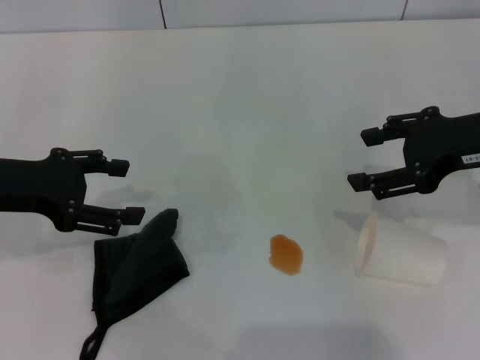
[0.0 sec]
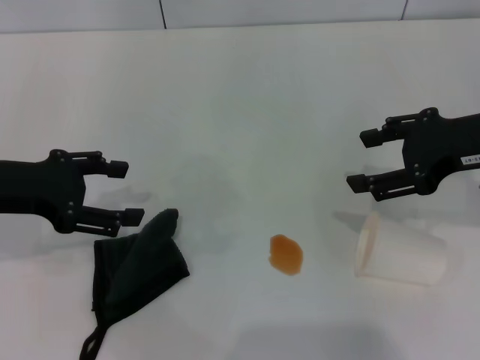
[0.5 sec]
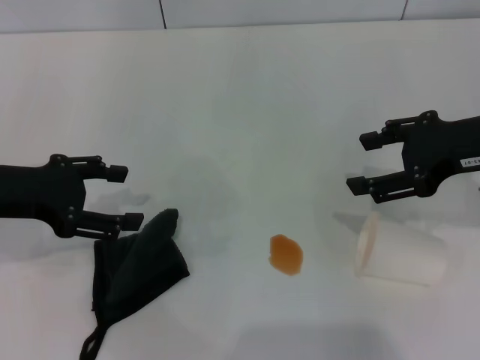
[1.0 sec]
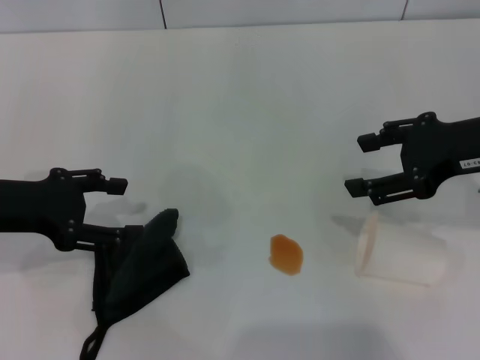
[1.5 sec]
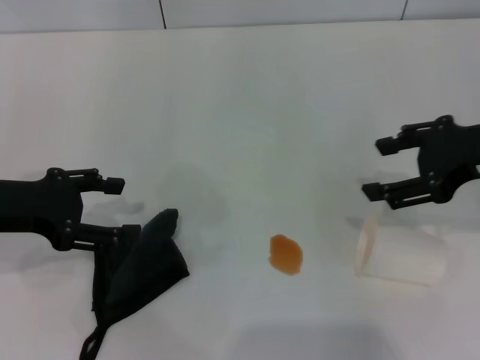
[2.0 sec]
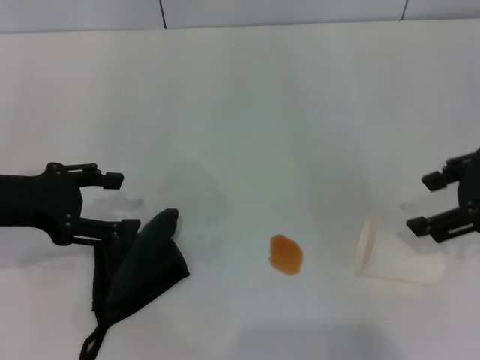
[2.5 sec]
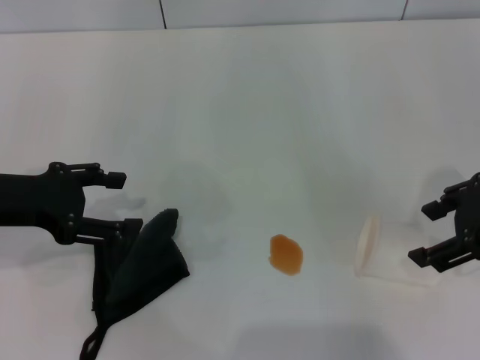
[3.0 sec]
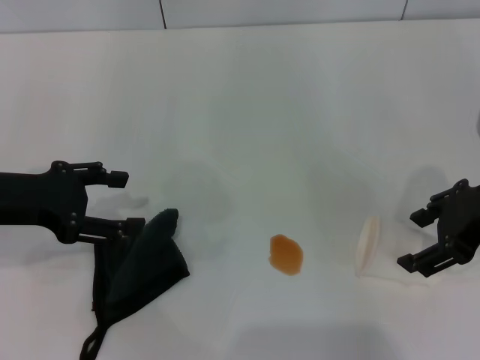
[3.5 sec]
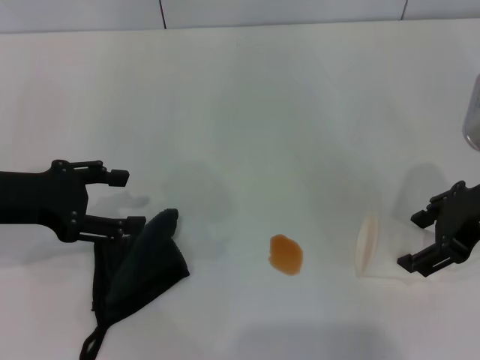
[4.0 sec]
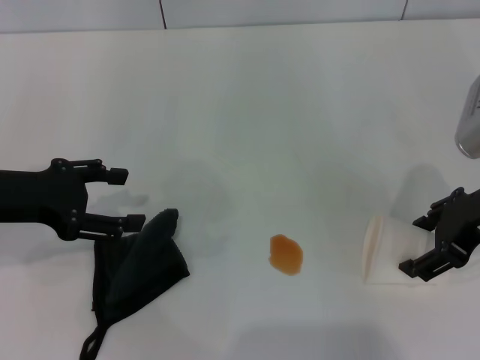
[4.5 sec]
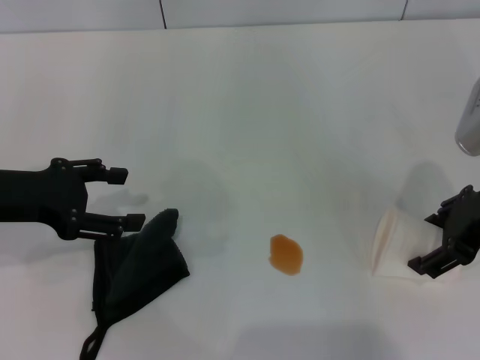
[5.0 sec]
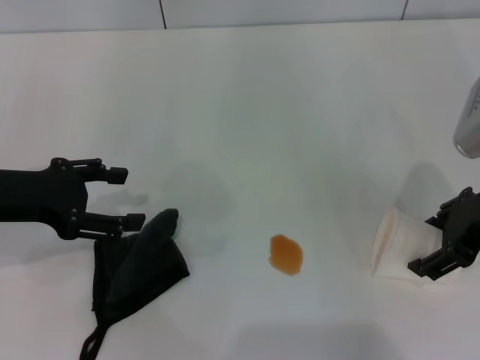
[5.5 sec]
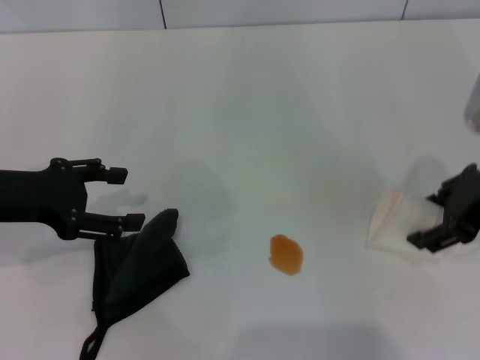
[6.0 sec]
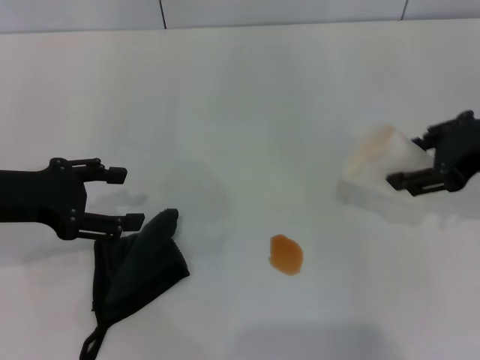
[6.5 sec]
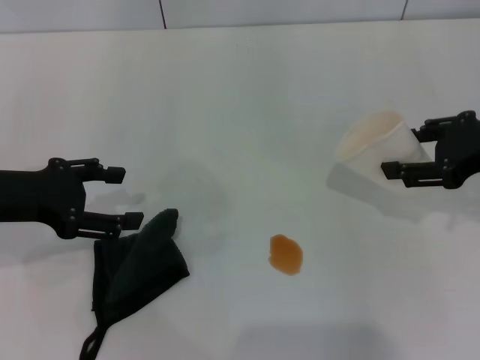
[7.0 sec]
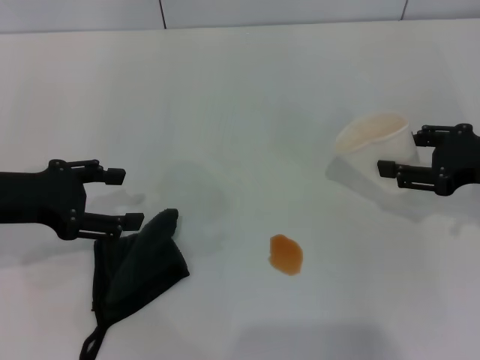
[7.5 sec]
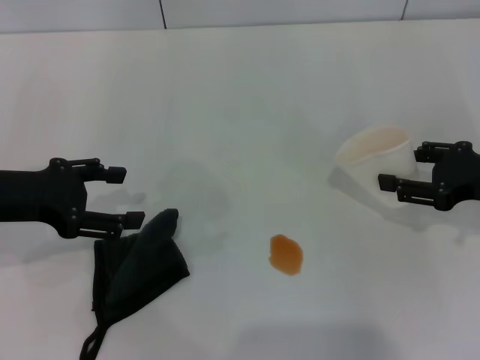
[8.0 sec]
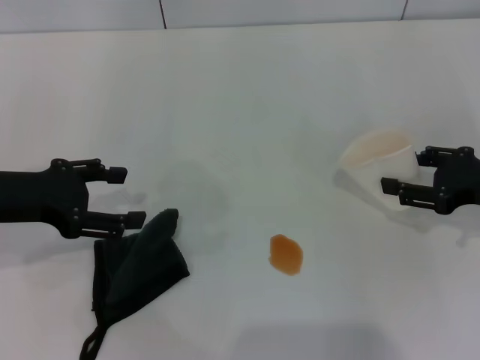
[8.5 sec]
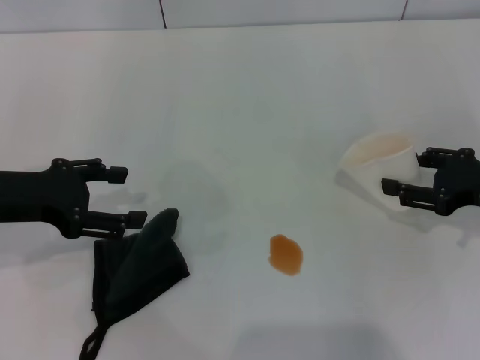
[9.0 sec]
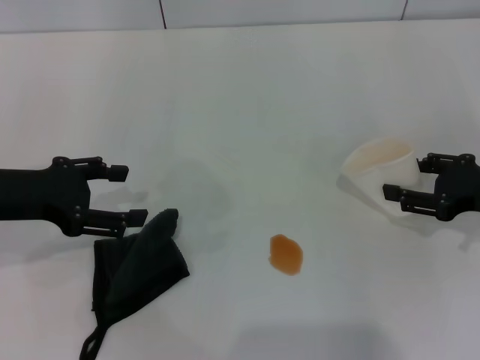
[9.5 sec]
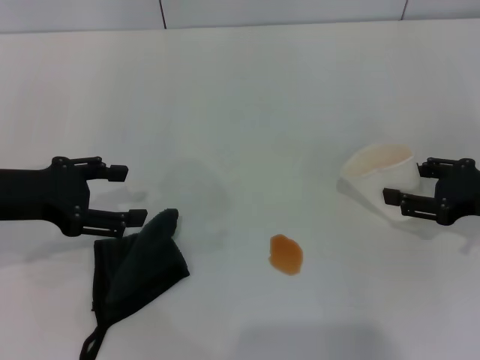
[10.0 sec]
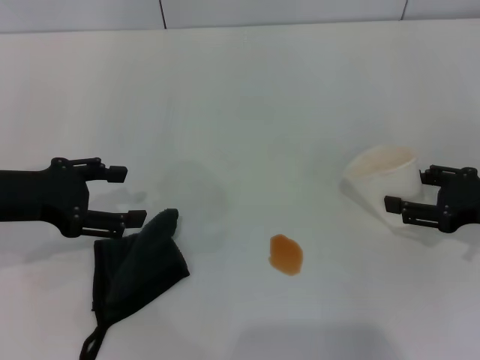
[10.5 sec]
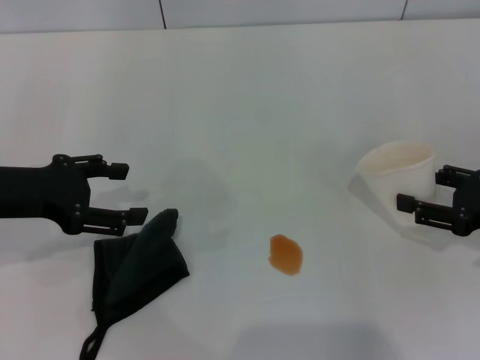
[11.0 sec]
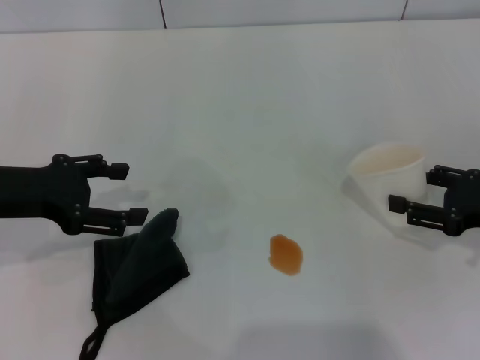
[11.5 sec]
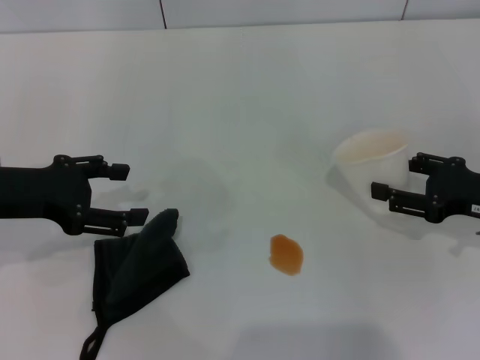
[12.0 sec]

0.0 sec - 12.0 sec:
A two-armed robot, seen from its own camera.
Step, 0.0 sec - 4.5 sec: Grasp the paper cup with the right gripper.
0.0 sec - 2.0 sec: There are only small adjustments of the grippers.
4.0 sec - 6.0 sec: Neither gripper changes place.
6.0 sec - 8.0 sec: The right gripper goes about 10 cm downward and to the right.
8.0 sec - 12.0 sec: The grippers make only small movements.

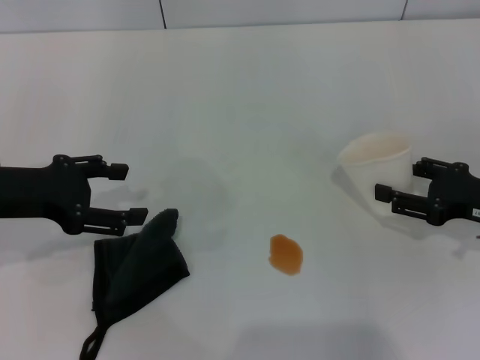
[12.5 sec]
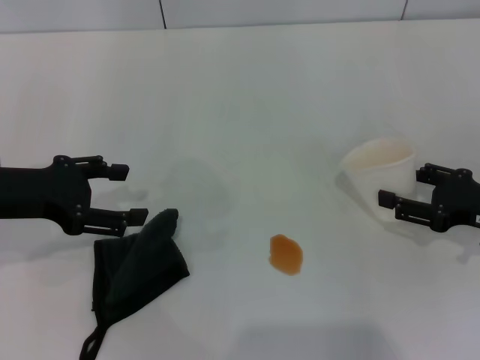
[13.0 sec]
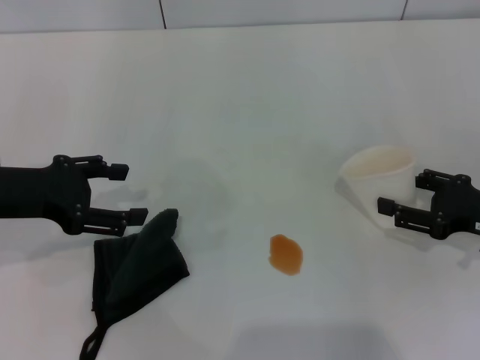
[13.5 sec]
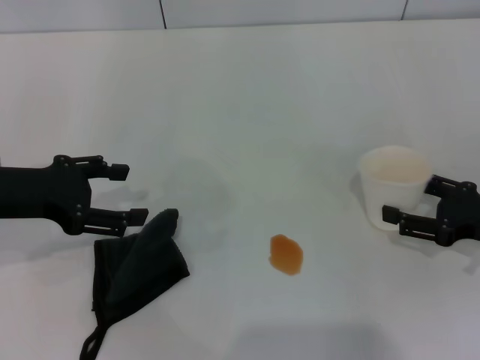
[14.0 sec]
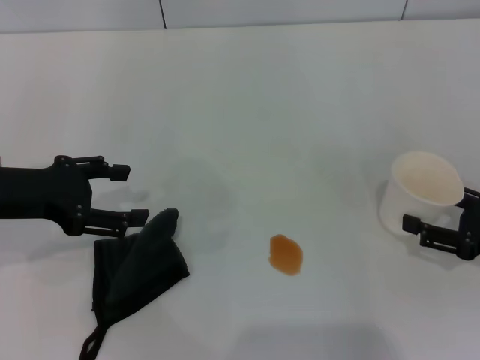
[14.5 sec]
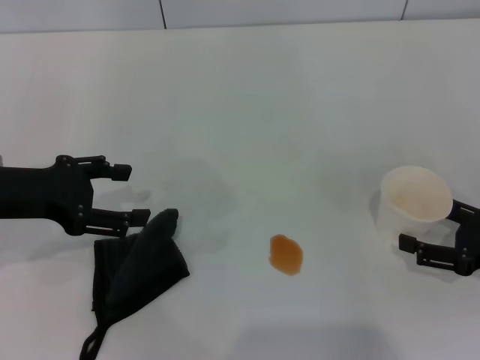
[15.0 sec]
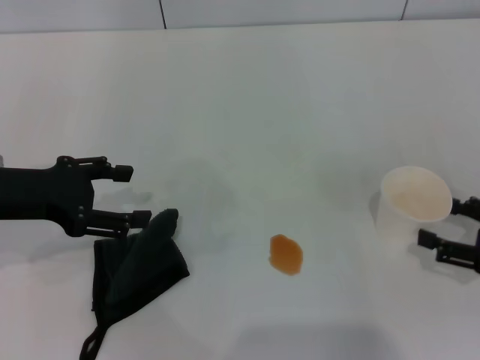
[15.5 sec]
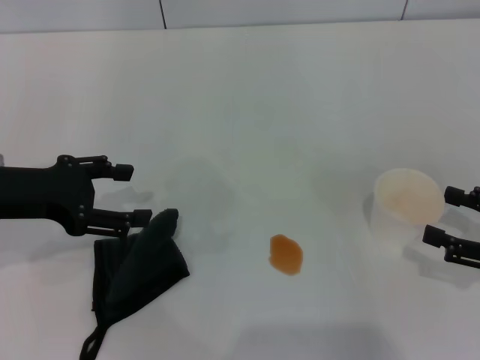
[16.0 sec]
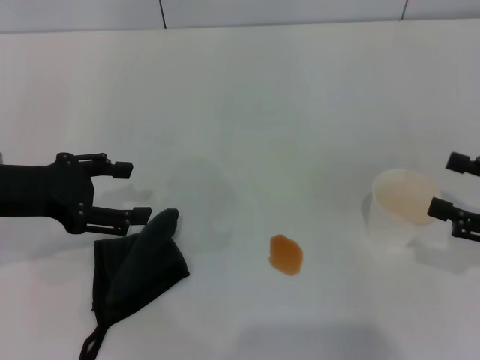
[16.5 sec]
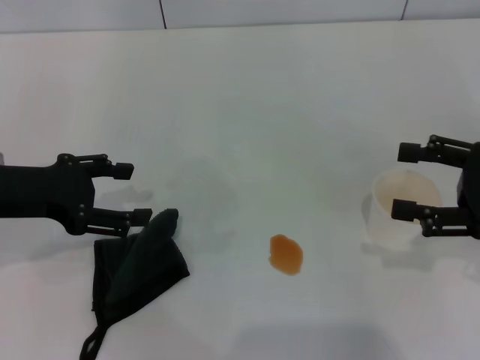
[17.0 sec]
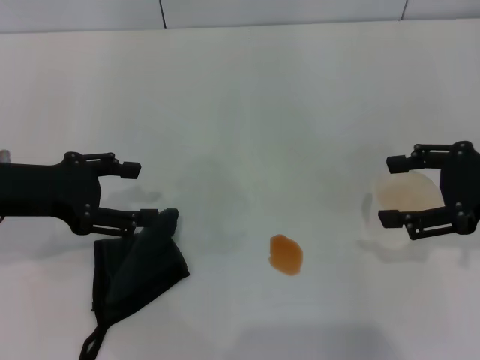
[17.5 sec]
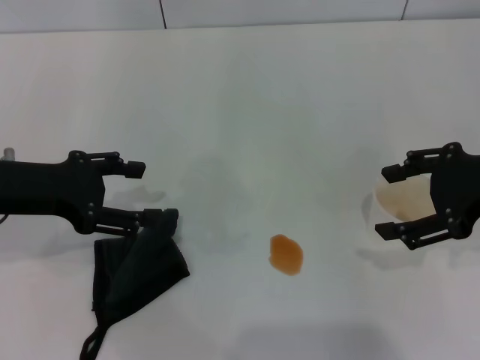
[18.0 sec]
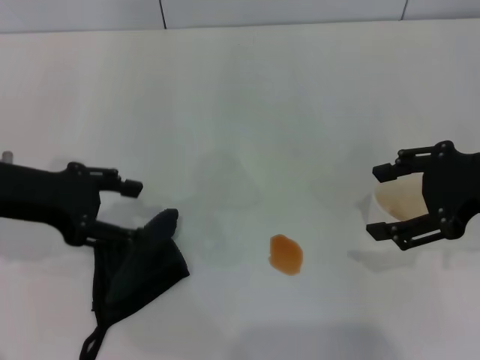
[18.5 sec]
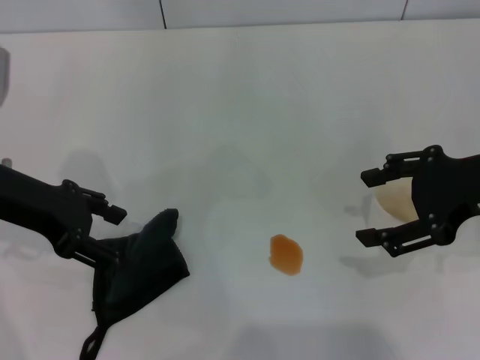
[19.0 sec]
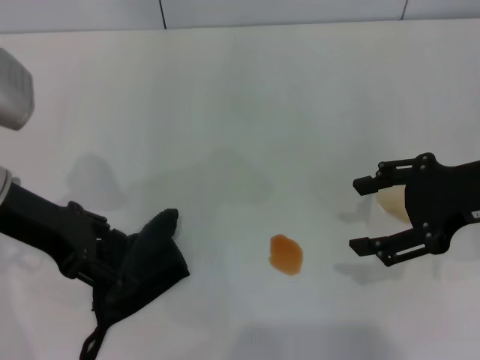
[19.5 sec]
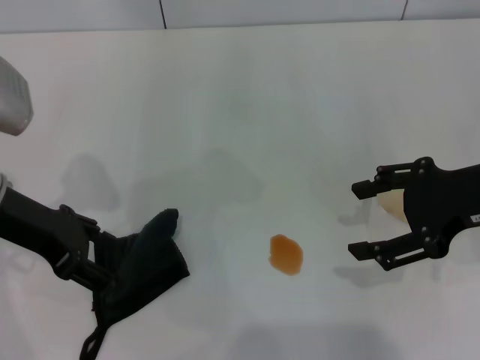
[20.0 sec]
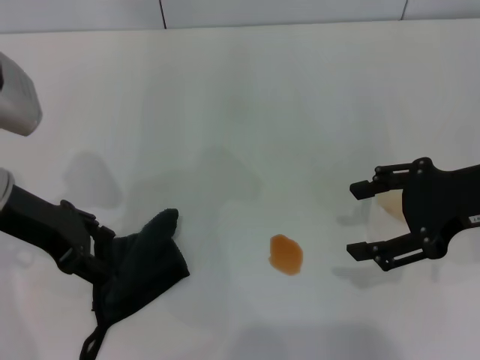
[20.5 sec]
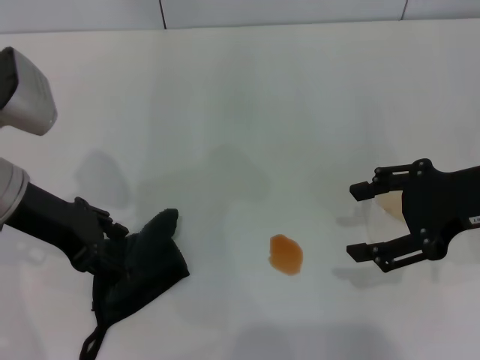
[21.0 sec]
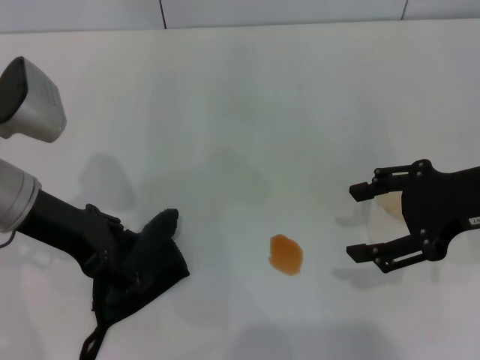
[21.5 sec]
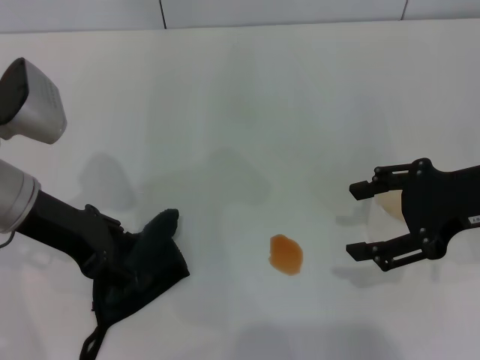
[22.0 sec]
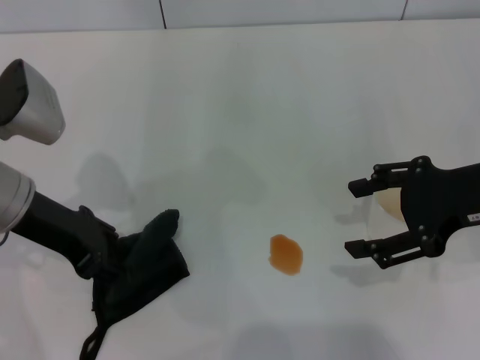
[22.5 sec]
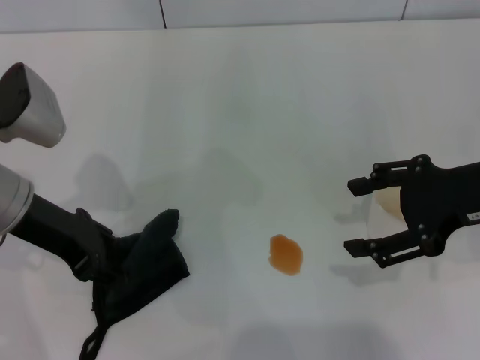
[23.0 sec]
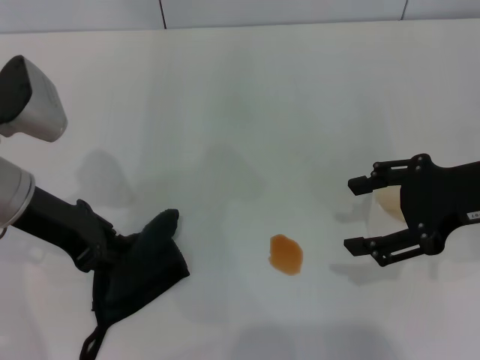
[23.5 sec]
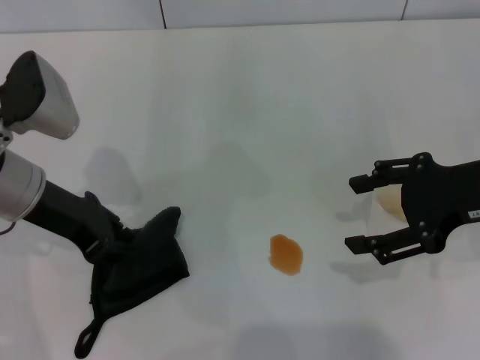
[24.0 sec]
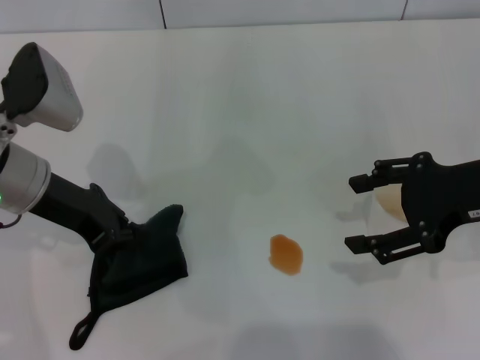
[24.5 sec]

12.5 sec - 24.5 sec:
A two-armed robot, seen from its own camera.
Step, 12.5 sec - 16.5 sec: Stand the paper cup upright with the right gripper.
12.5 sec - 14.5 sec: The right gripper opens up.
14.5 sec - 16.5 sec: The grippers make only small movements.
16.5 sec - 18.5 sec: The right gripper goes some 15 cm upward, to the left and forward.
20.5 sec - 22.5 sec: The left gripper closes.
22.5 sec - 24.5 sec: The left gripper closes.

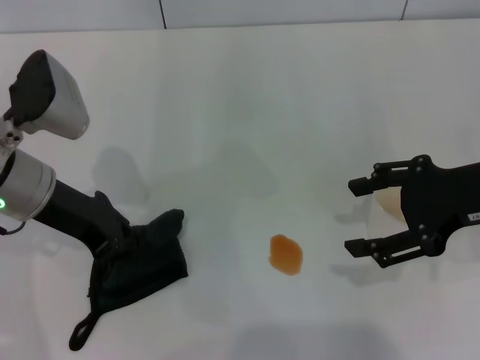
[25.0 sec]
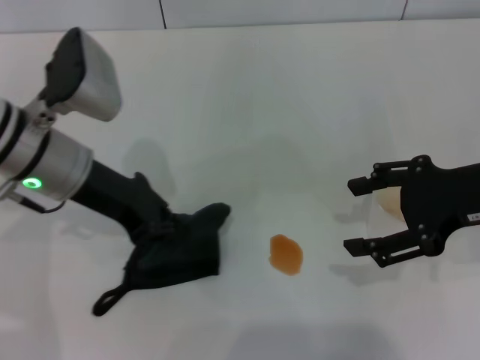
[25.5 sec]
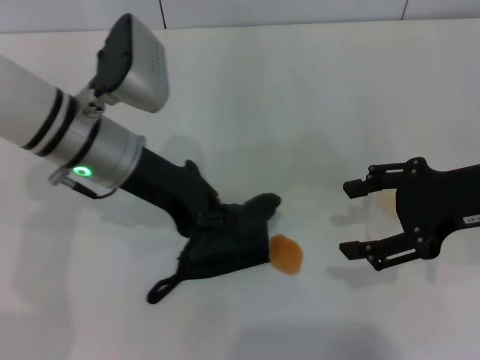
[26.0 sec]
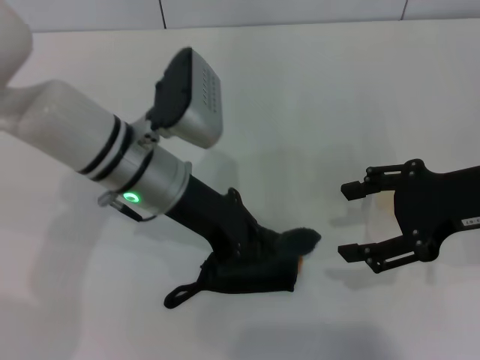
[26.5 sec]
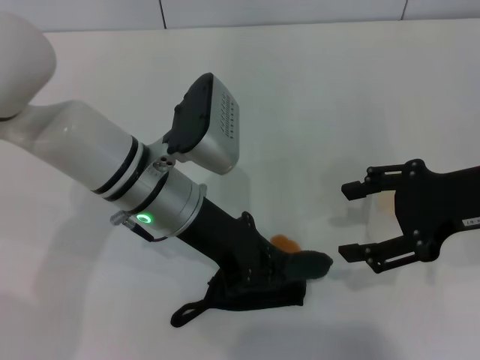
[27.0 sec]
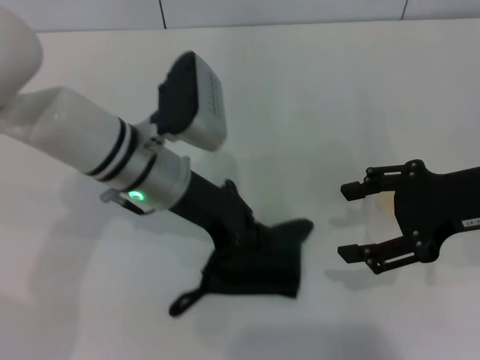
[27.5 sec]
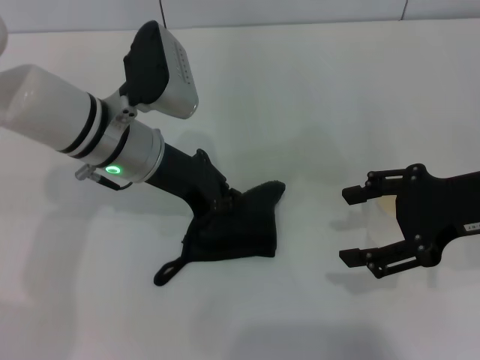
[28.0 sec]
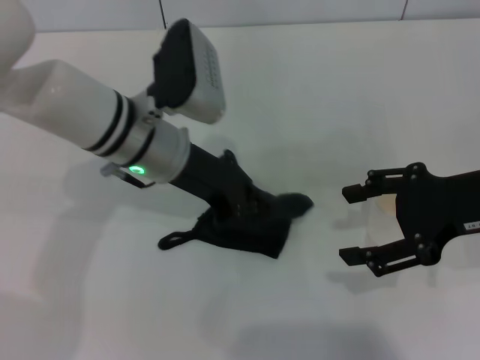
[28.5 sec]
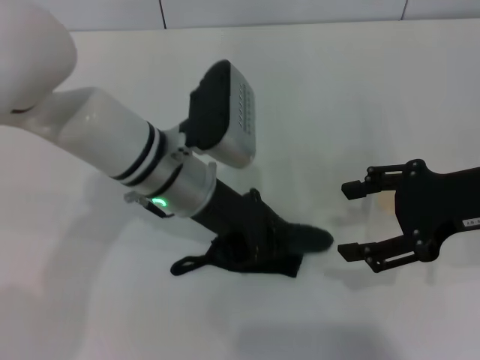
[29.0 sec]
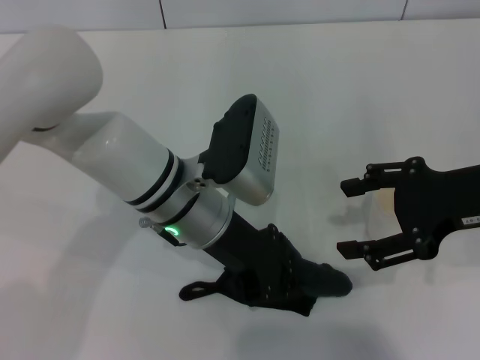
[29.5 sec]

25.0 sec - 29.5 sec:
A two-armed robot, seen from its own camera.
25.0 sec - 27.0 sec: The left gripper moves to the right, some 15 cm.
27.0 sec - 29.5 sec: The grippers stay close to where they were, moving slightly.
